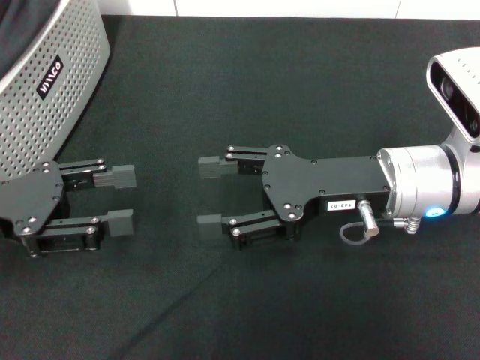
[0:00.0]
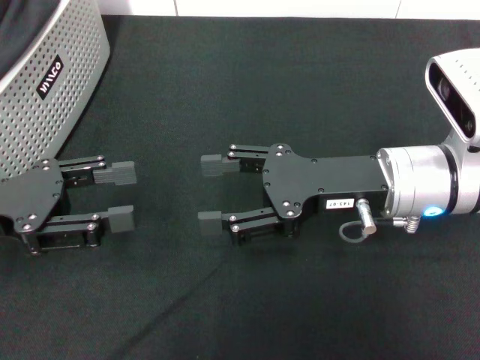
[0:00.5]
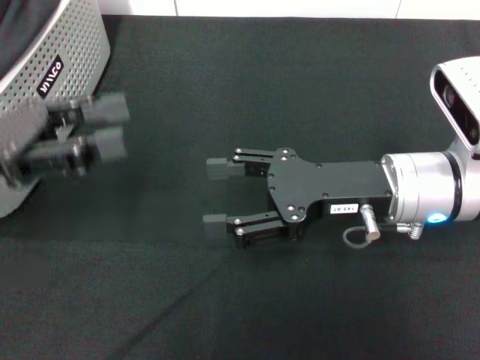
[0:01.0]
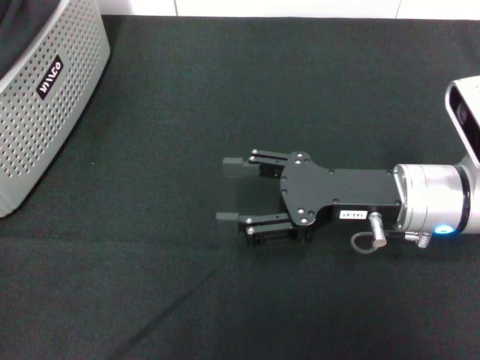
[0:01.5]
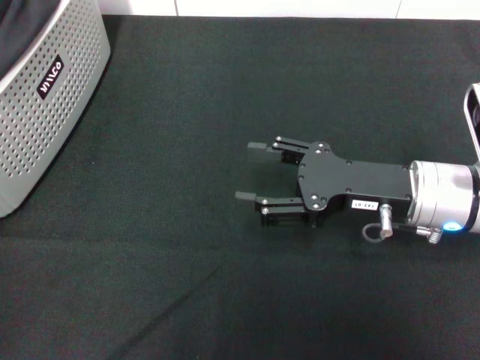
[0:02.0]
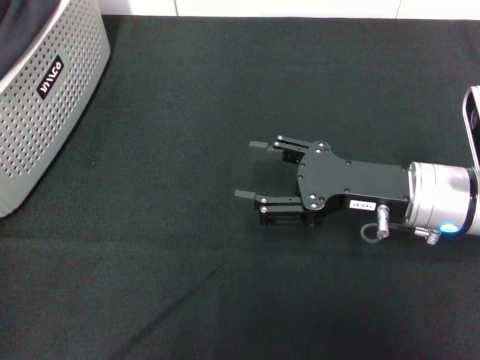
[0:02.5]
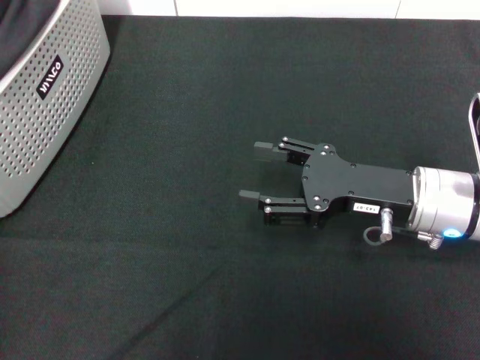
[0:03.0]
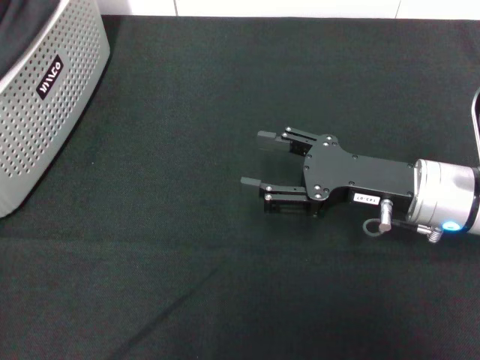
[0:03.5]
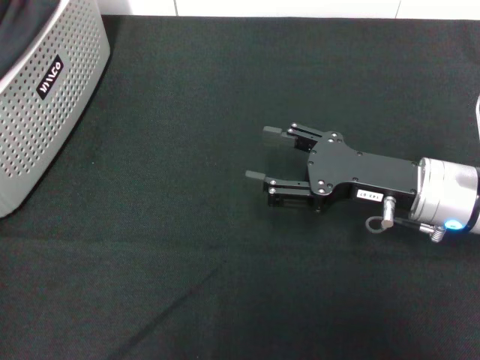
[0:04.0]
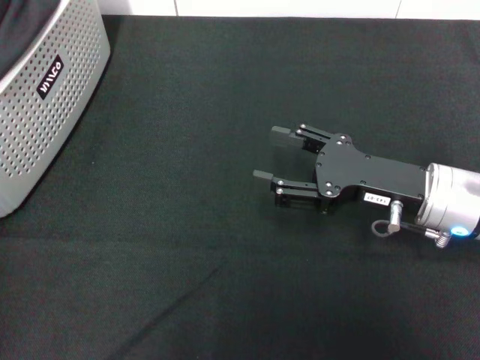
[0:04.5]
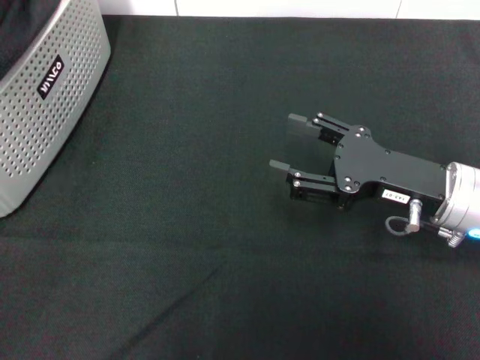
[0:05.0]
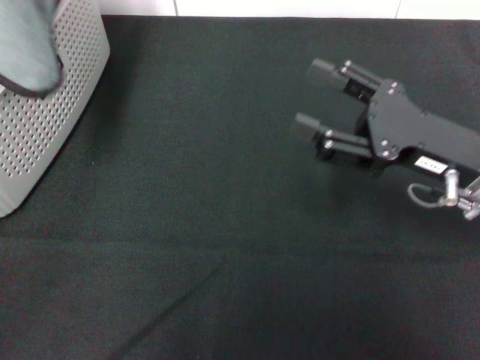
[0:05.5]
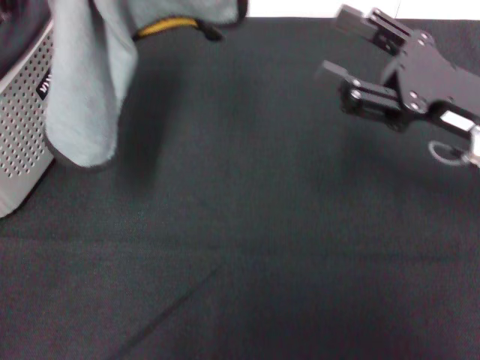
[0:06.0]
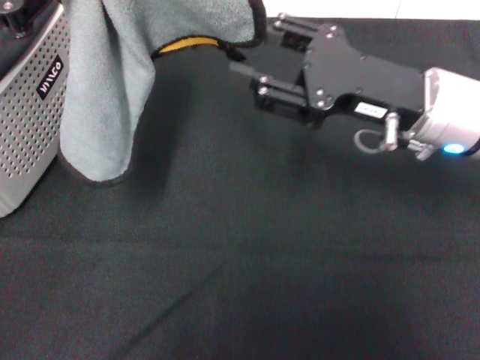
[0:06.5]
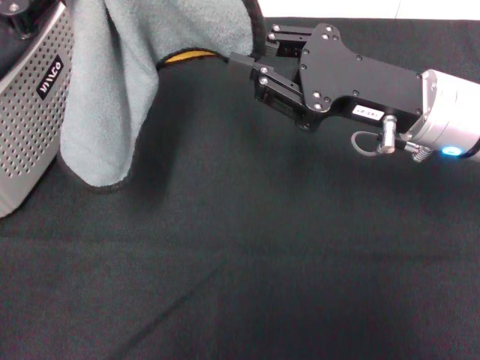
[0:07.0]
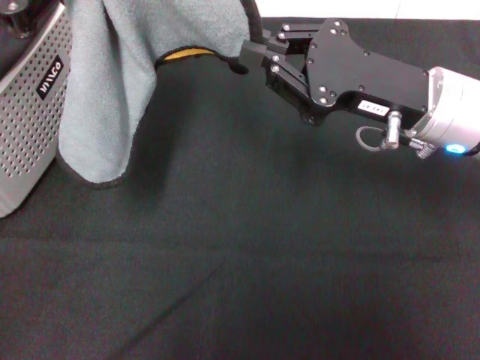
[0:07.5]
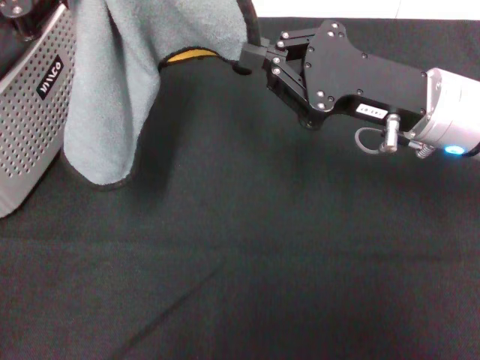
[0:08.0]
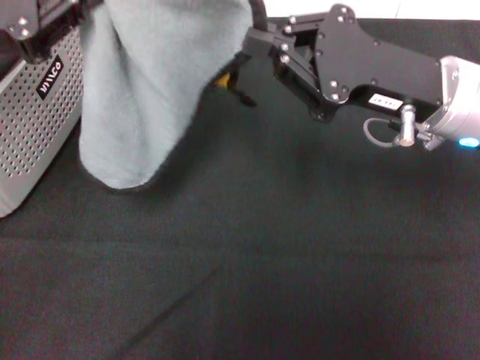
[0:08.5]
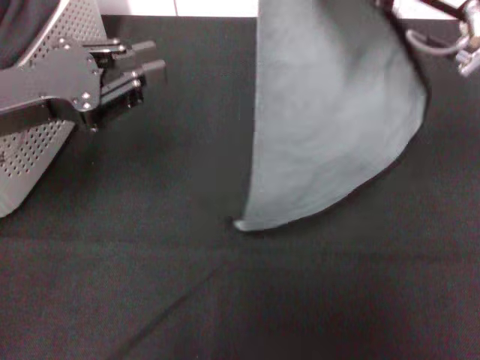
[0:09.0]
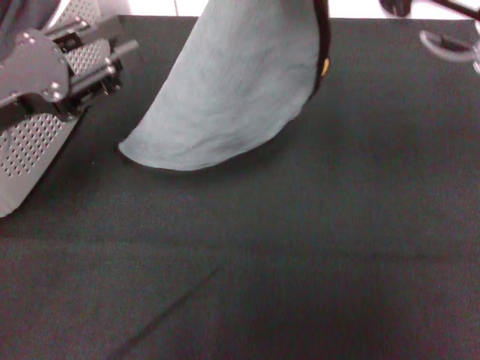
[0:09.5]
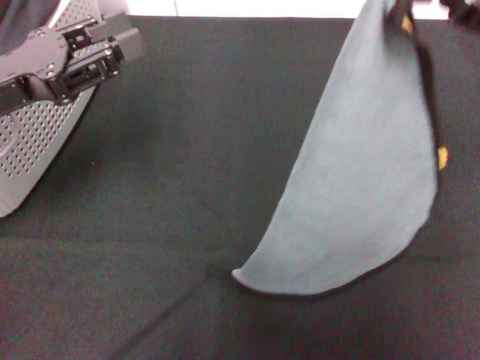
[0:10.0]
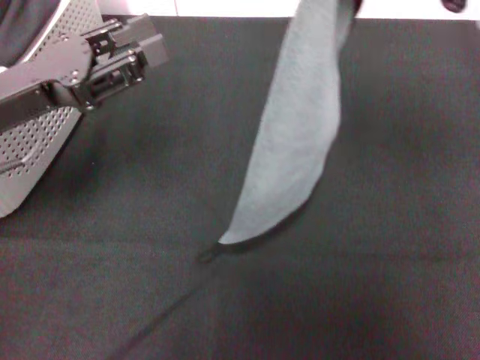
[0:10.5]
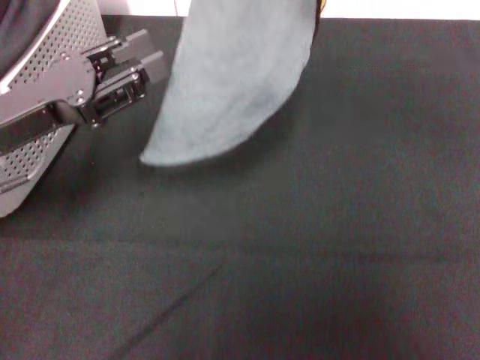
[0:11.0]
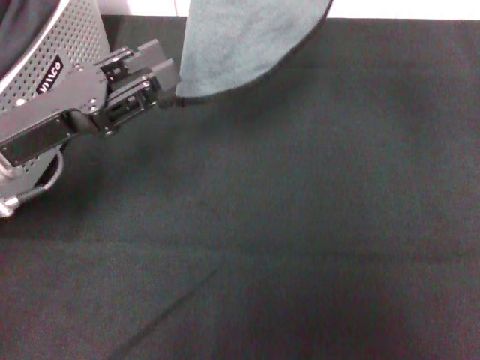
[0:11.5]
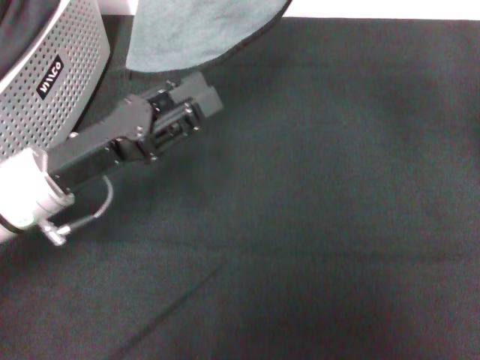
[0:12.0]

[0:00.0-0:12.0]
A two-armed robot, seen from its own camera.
Task of the whole recording: pick up the towel from the storage box and lay it flat on the black tablecloth.
Step, 0:00.0 to 0:04.0: Pick up a towel with the left gripper.
Step, 0:04.5 to 0:07.5: Spread the towel flat with the left gripper.
0:00.0 to 0:02.0: The left gripper shifts roughly 20 cm upward.
0:02.0 to 0:04.0: The left gripper is displaced downward by some 5 cm.
0:04.0 to 0:06.0: The left gripper travels to the right and backward by some 10 cm, and closes; the right gripper heads upward, covering approximately 5 cm.
0:06.0 to 0:08.0: The right gripper shifts approximately 5 cm to the left, and closes its fingers.
0:08.0 to 0:10.0: The right gripper shifts approximately 15 cm upward and to the right. Meanwhile the left gripper is displaced downward by approximately 10 cm, and opens its fingers.
0:10.0 to 0:12.0: The right gripper moves to the left, roughly 15 cm, while the left gripper heads downward and to the right, covering about 10 cm.

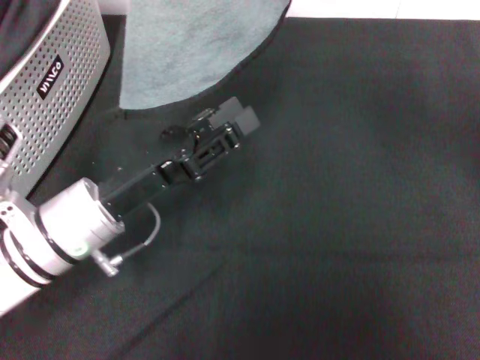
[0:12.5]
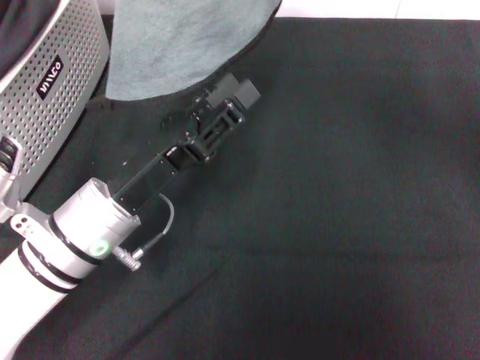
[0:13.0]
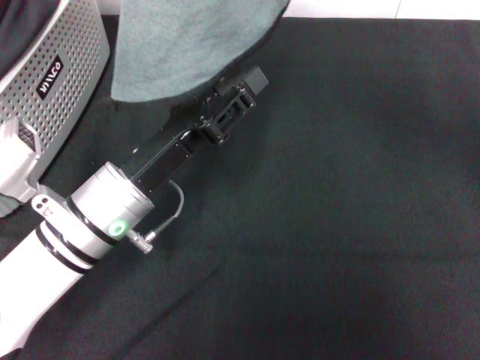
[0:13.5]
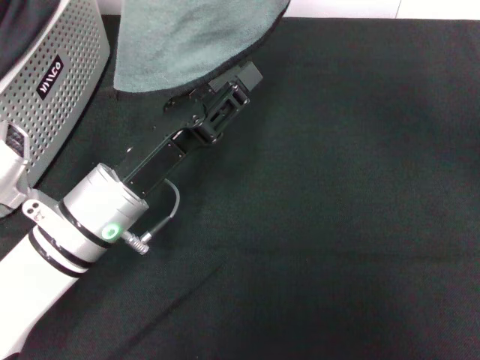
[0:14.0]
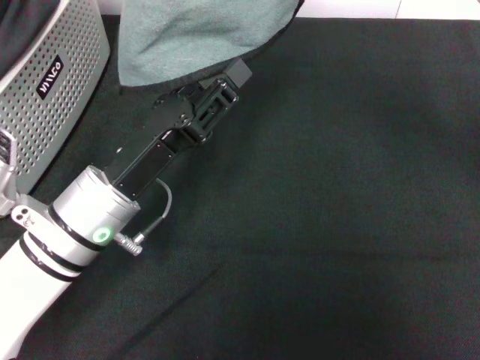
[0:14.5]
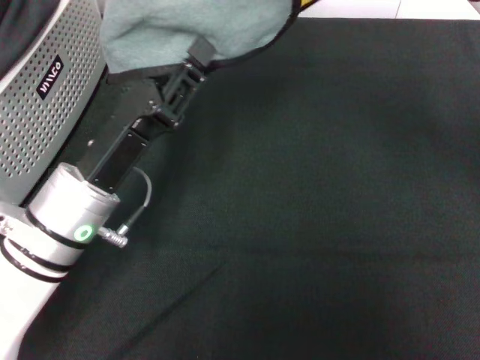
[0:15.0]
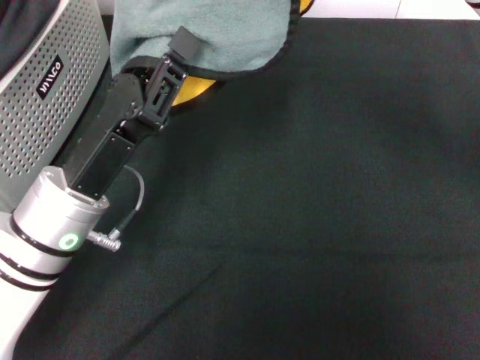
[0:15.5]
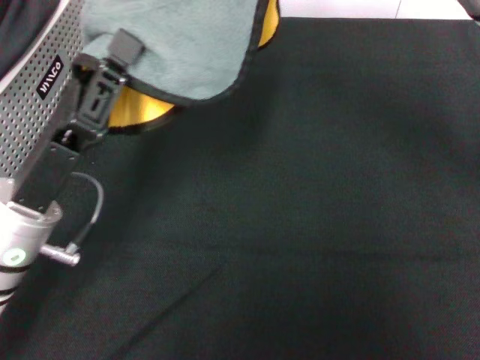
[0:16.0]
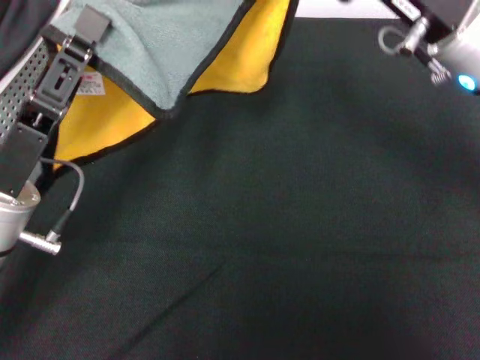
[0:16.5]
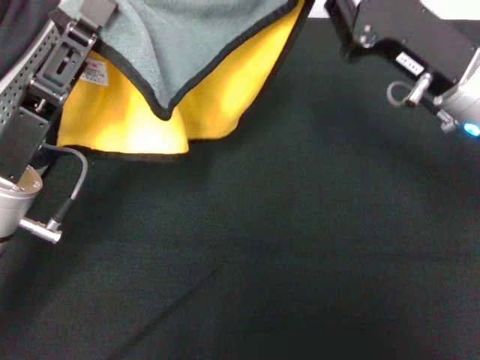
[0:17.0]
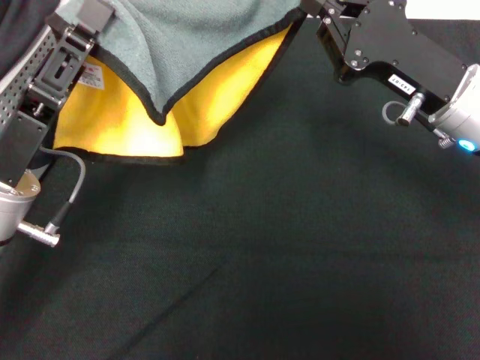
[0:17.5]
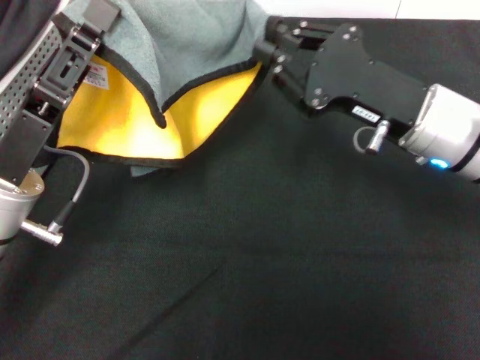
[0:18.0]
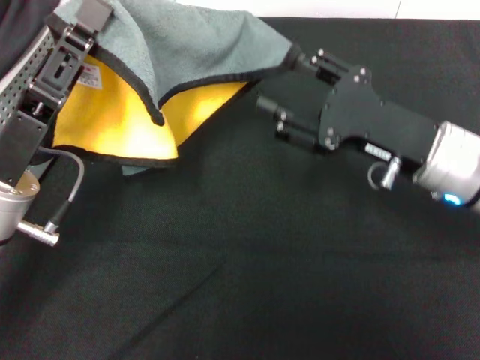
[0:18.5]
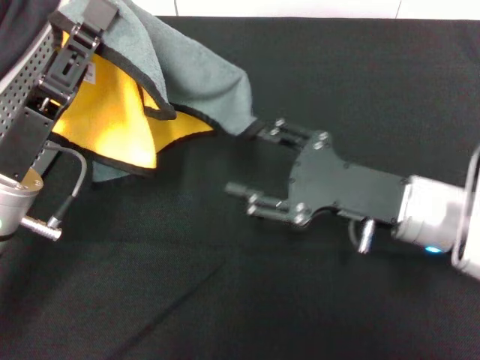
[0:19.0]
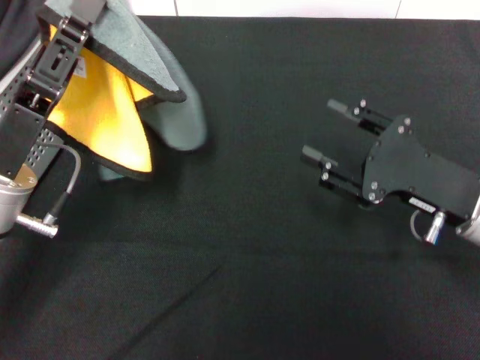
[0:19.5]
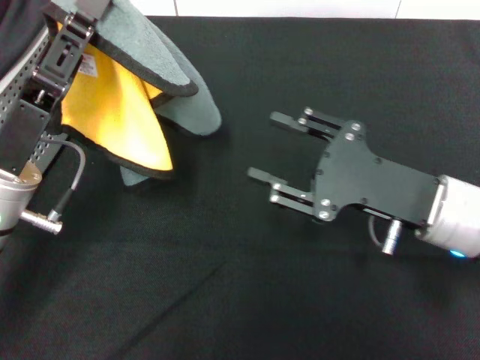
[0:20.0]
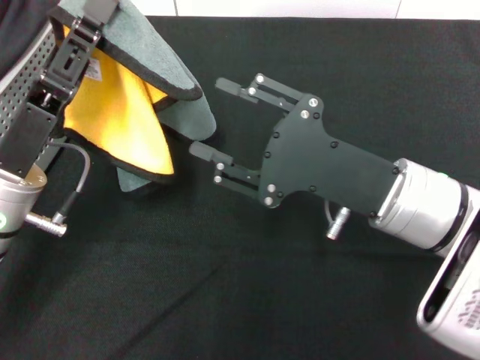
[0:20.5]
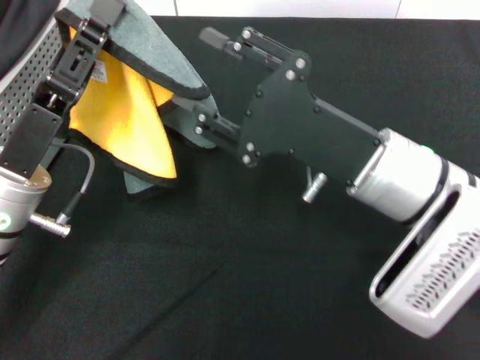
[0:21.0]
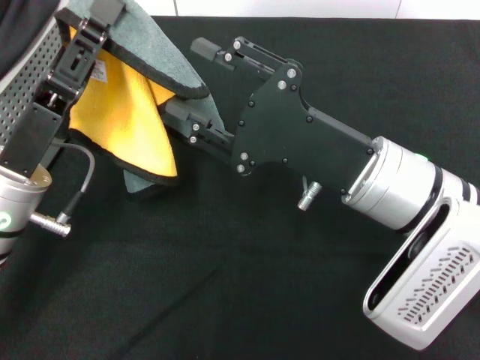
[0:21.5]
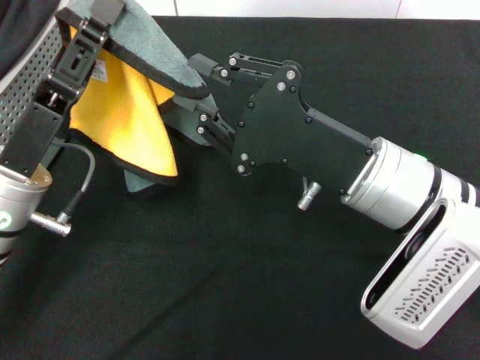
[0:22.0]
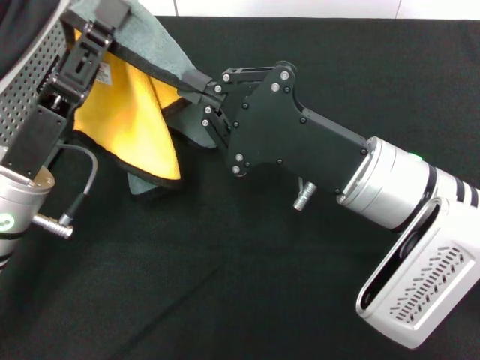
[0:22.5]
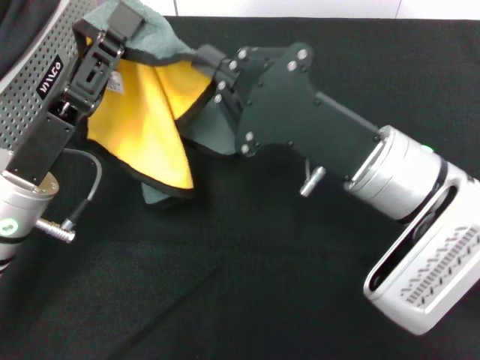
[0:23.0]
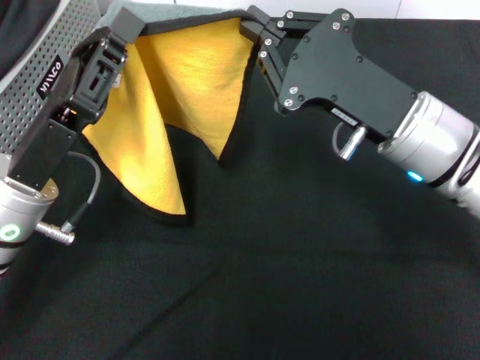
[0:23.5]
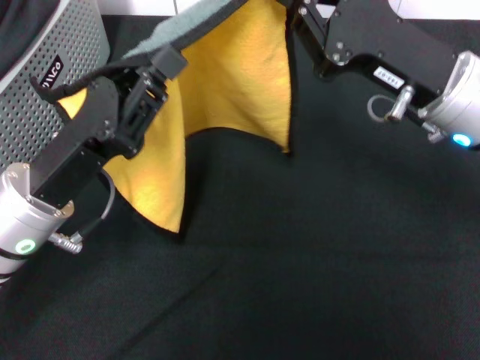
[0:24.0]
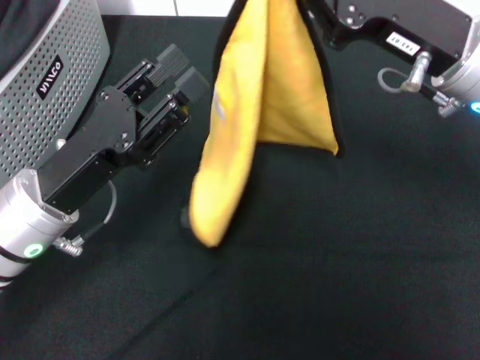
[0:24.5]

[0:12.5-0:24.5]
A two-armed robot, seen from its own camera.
Task of the whole recording: pick up the towel from the storage box and lay it flat on the black tablecloth.
0:12.5 to 0:14.5: The grippers stay close to where they were, moving slightly.
0:14.5 to 0:16.5: The left gripper travels to the left by approximately 5 cm, and closes its fingers; the right gripper goes roughly 10 cm downward and to the right.
0:16.5 to 0:18.5: The right gripper goes approximately 10 cm downward, and opens up.
0:18.5 to 0:20.5: The right gripper shifts by about 5 cm.
0:20.5 to 0:22.5: The right gripper closes its fingers.
0:22.5 to 0:24.5: The left gripper opens. The right gripper travels to the right, upward and forward by roughly 10 cm.

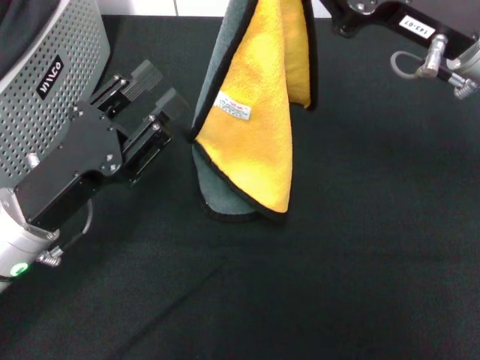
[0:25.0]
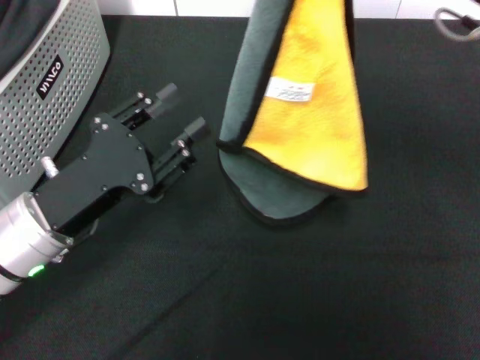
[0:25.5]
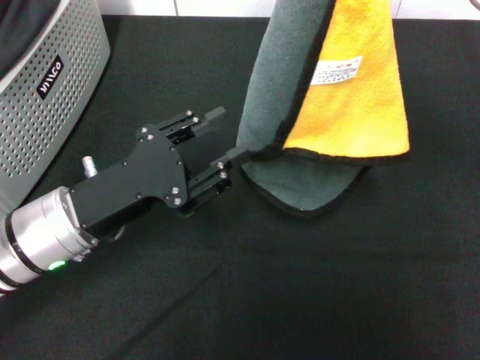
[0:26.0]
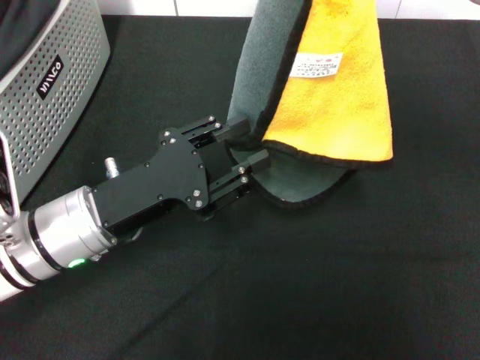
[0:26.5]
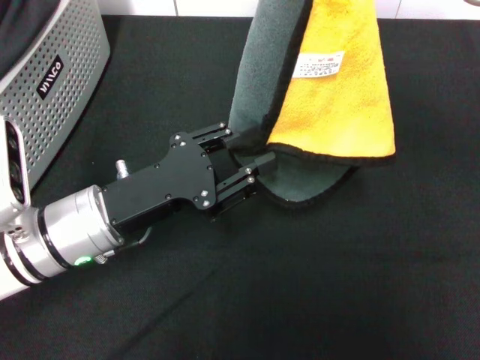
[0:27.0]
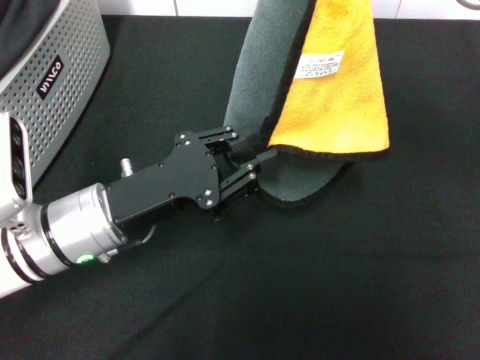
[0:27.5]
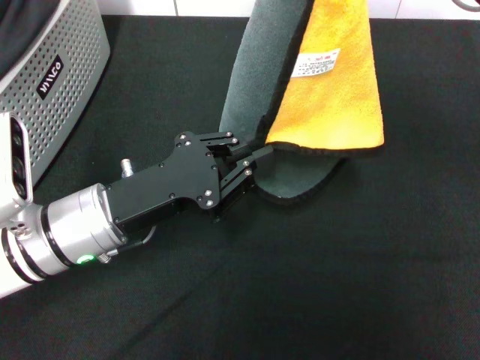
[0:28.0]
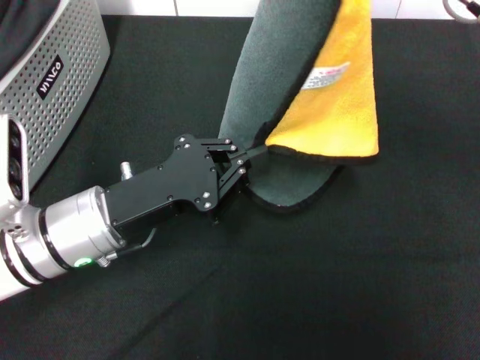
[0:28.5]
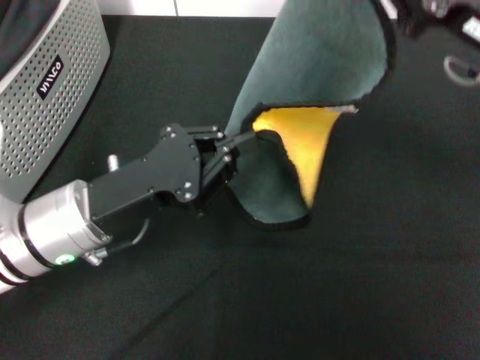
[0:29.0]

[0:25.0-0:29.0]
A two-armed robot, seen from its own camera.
Task of the whole recording: pick up the towel from the storage box and lay it flat on the black tablecloth.
0:25.0 to 0:27.0: The right gripper shifts by roughly 5 cm.
0:27.0 to 0:29.0: The left gripper closes, while the right gripper is displaced downward by about 5 cm.
